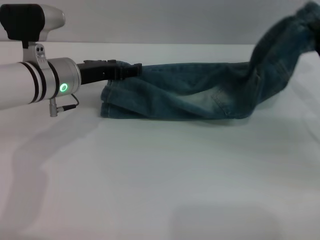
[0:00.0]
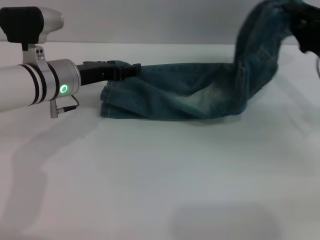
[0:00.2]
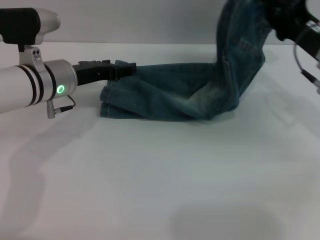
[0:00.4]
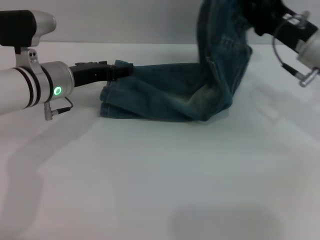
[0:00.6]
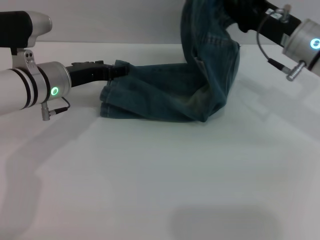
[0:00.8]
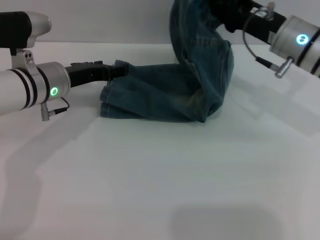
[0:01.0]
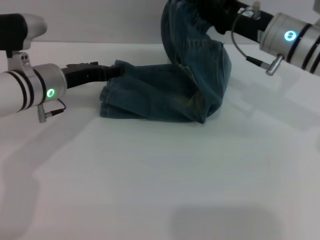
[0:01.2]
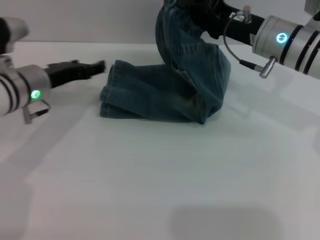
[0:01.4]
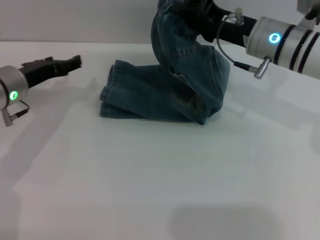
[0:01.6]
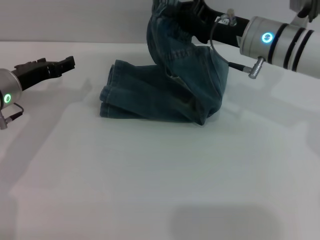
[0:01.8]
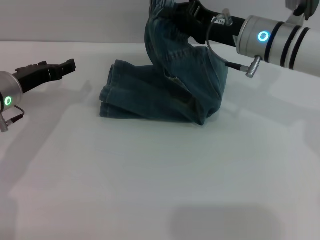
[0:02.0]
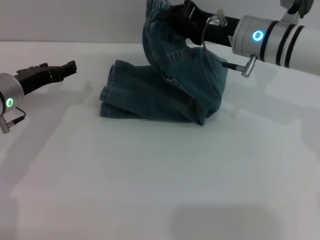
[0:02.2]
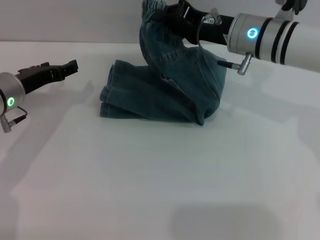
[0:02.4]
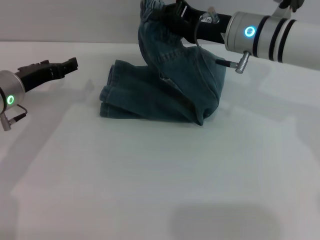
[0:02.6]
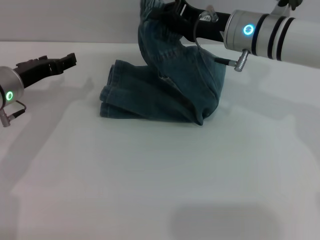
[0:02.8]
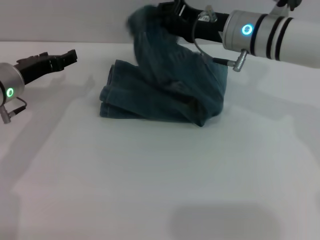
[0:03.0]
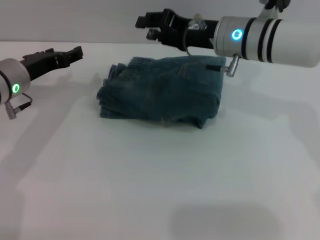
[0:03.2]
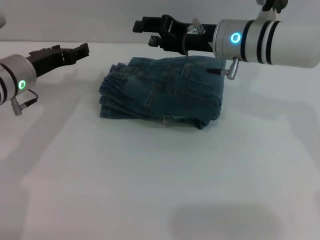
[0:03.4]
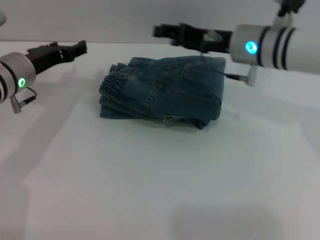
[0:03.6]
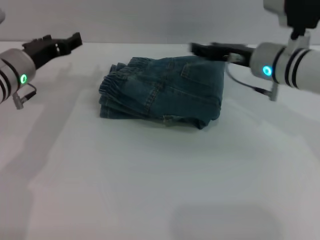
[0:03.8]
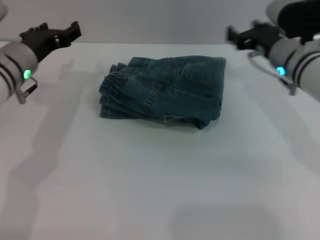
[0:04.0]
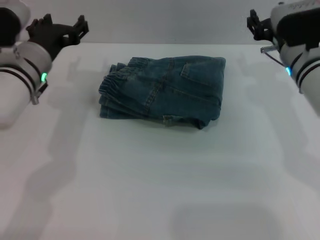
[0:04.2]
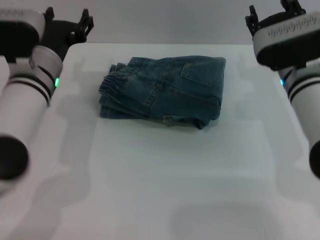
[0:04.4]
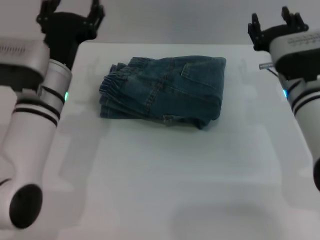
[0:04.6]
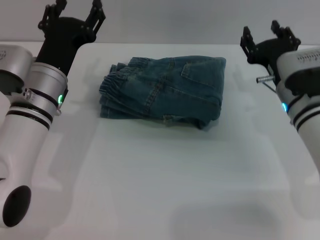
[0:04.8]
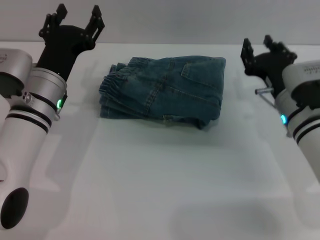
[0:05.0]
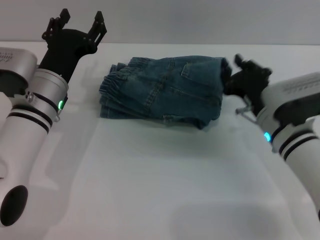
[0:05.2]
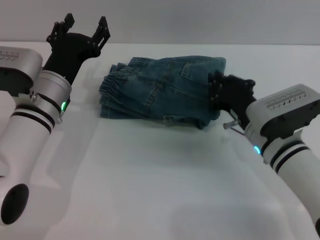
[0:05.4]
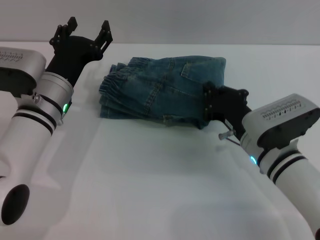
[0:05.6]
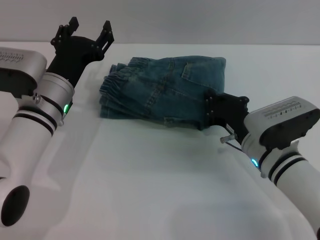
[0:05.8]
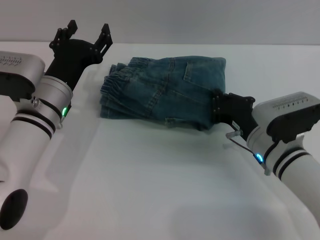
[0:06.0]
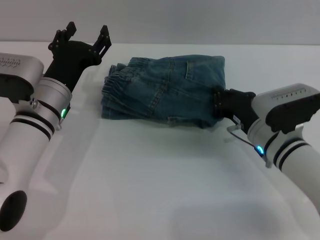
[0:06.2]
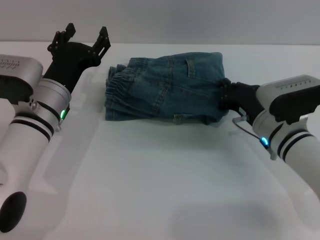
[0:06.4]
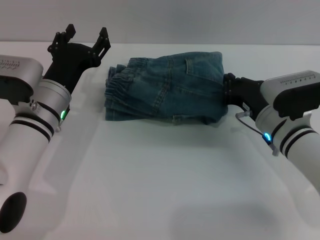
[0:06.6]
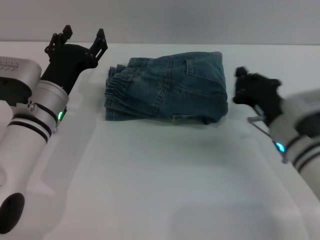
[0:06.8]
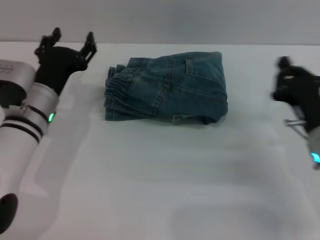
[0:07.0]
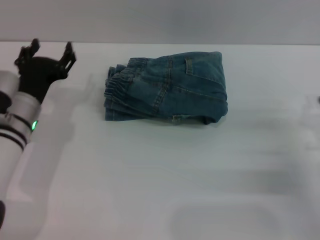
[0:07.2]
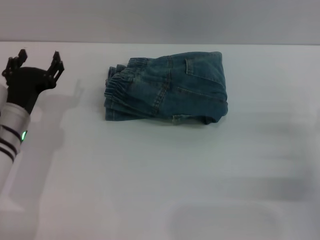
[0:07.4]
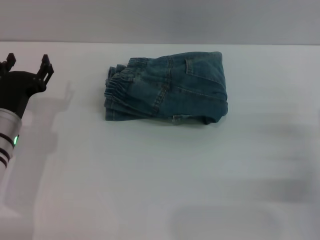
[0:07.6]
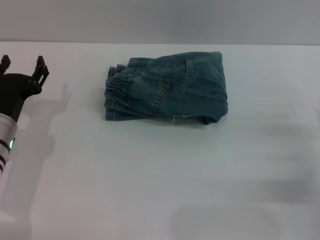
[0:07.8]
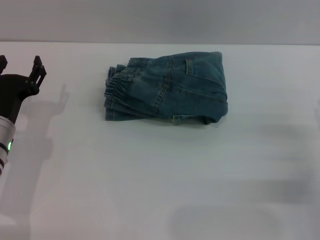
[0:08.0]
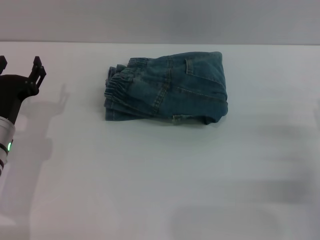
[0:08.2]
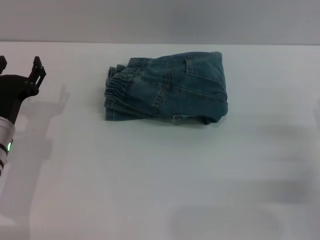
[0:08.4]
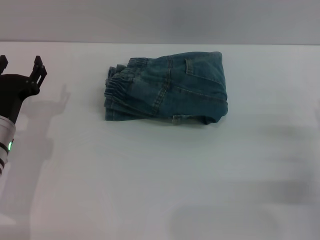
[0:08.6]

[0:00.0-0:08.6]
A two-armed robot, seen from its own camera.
Step, 0:00.0 to 0:03.6: Fold the pants from right to left with the right gripper.
Step, 0:03.8 to 0:06.6: Place the folded trousers onto the center area with the right grippers.
0:00.0 to 0:01.4: The right gripper shifts approximately 15 cm to the left and forward.
0:01.4 to 0:02.8: There are only small adjustments of the grippers.
0:02.8 to 0:04.4: The left gripper goes about 10 cm to the right; the right gripper heads backward and downward, covering about 5 cm, and opens its fingers.
0:04.4 to 0:05.8: The right gripper moves downward and backward, some 10 cm, and closes.
0:05.8 to 0:07.2: The right gripper moves to the right, approximately 15 cm, while the left gripper moves about 5 cm.
